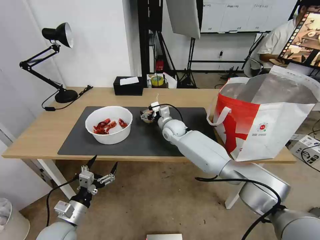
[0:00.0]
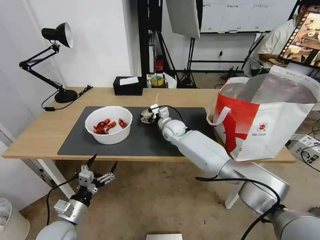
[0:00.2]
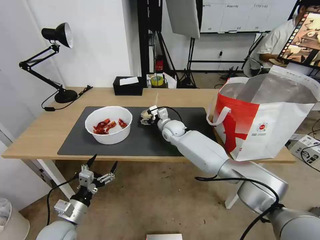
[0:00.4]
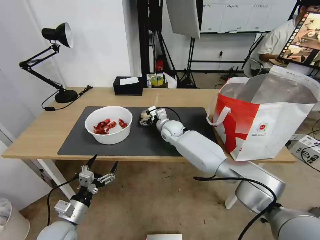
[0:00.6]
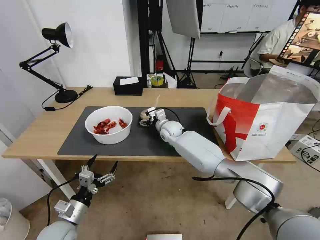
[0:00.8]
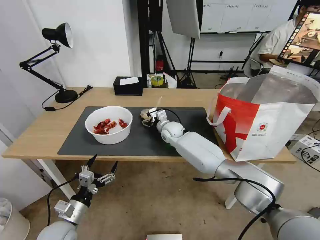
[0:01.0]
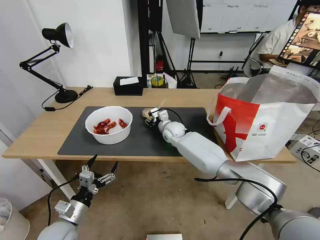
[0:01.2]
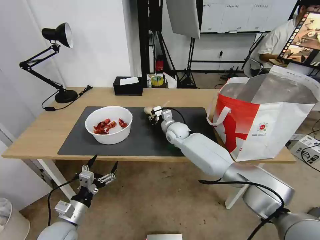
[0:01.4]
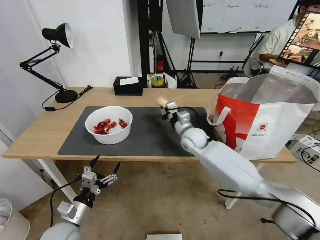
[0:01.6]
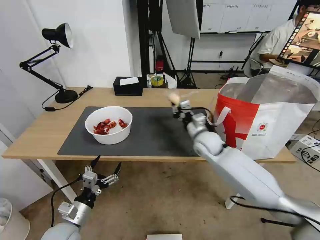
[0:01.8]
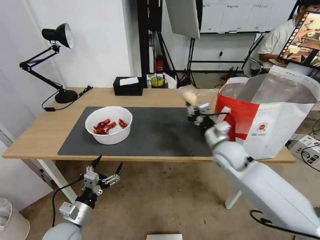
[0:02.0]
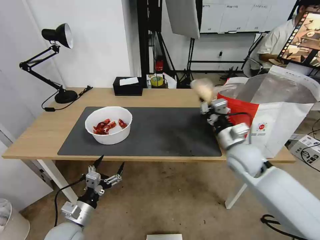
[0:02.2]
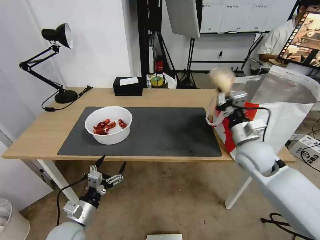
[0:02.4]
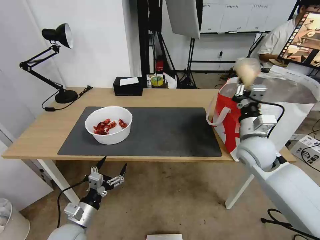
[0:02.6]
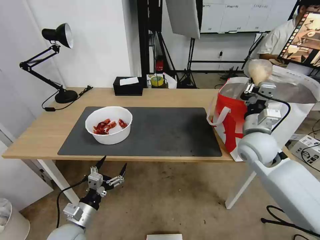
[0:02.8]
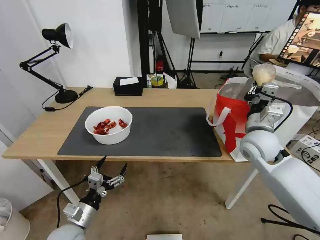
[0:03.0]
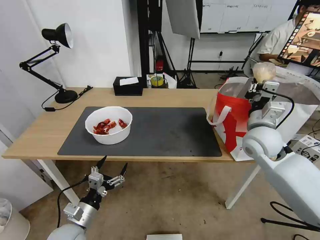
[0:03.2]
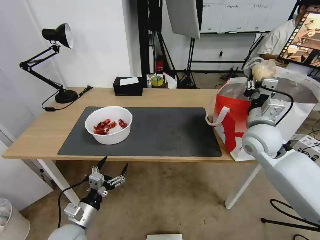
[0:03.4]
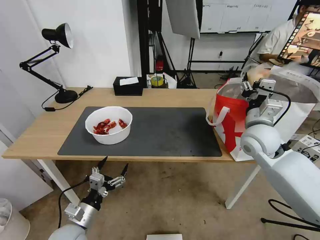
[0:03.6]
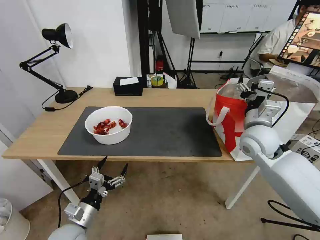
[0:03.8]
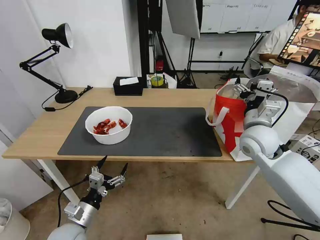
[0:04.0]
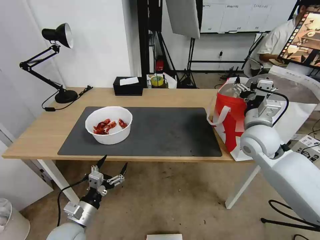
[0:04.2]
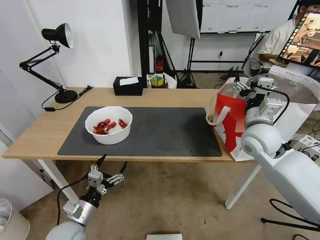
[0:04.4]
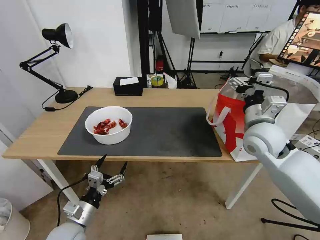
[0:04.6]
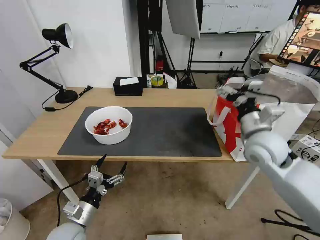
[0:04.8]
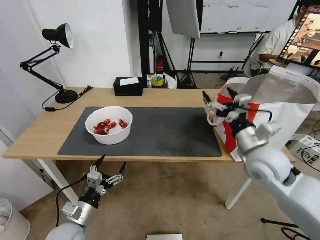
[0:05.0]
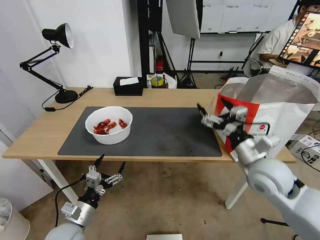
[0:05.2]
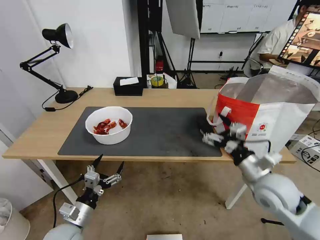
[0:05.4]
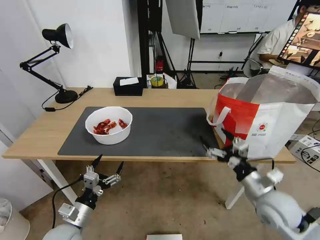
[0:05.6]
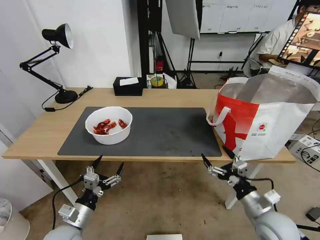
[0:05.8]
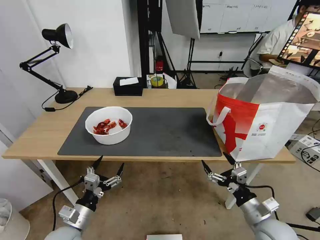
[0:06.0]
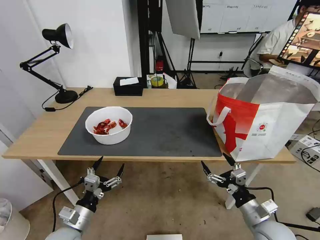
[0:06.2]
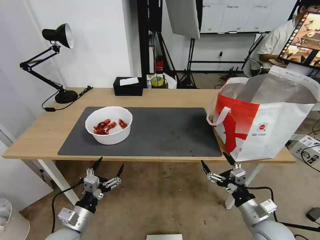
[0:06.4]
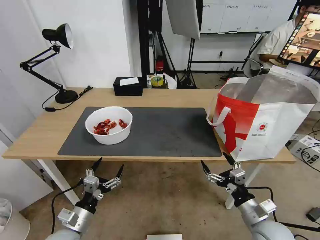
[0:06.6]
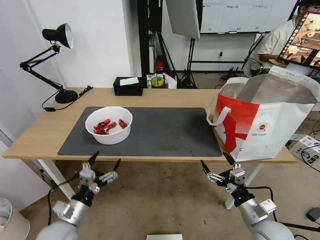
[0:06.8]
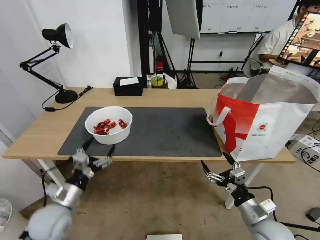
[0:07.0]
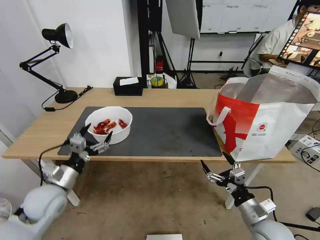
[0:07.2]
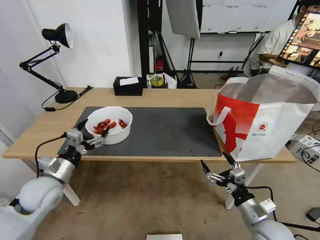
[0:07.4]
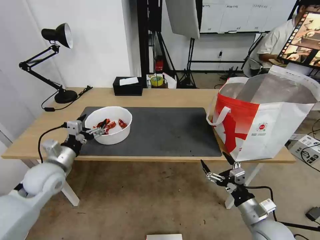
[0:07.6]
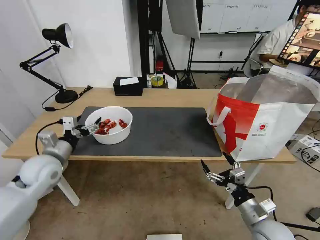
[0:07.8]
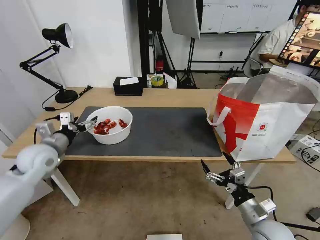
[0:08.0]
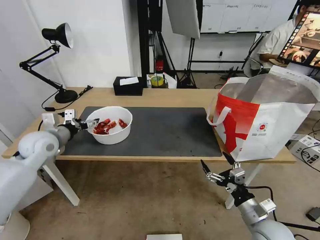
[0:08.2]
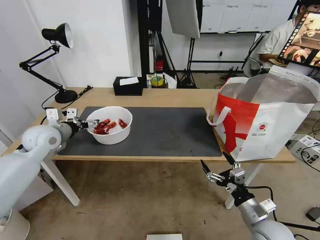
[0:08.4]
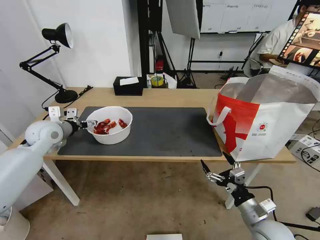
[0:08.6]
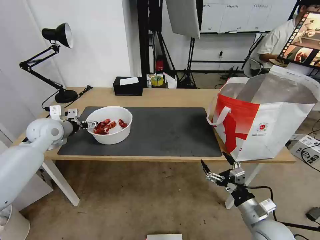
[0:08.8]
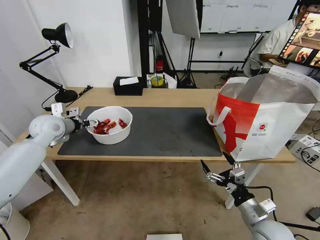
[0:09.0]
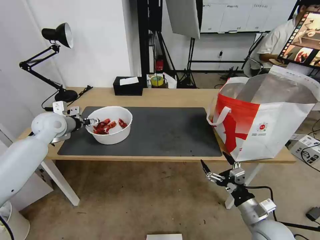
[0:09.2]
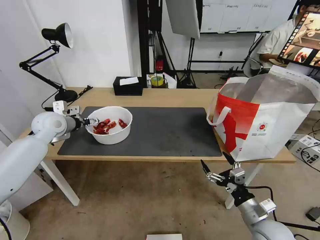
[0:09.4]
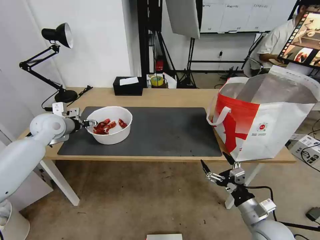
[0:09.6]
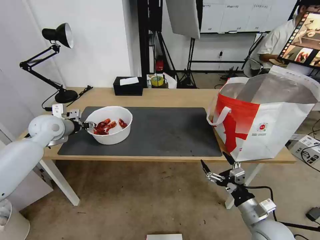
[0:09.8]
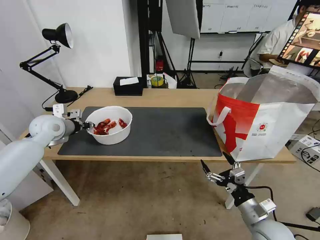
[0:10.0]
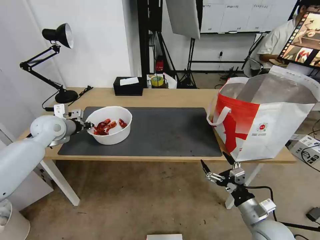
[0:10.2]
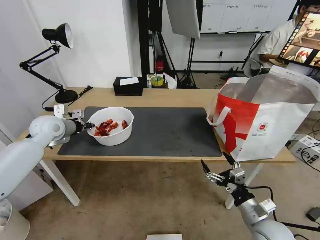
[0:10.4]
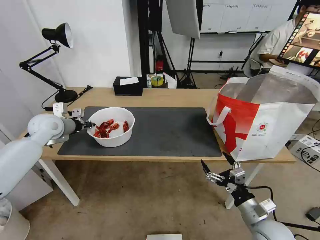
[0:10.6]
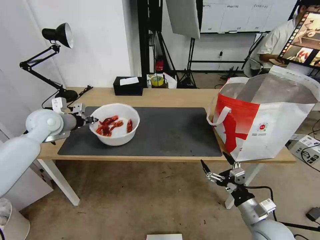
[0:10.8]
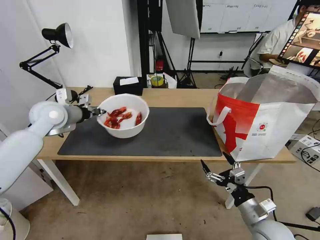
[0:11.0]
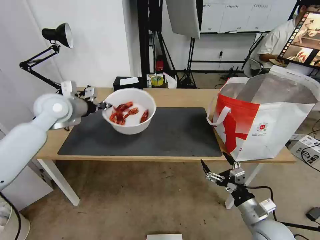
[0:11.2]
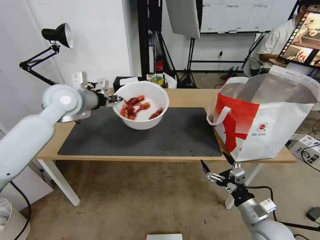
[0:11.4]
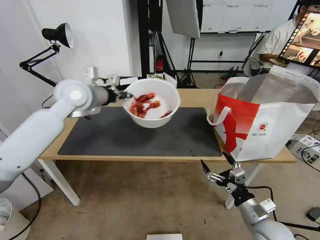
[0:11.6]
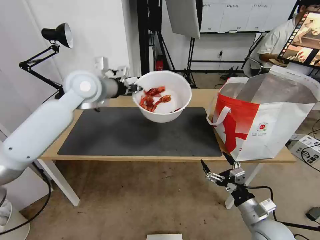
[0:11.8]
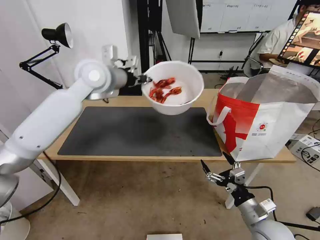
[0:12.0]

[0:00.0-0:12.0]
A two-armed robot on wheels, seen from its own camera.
Task of the whole recording: Pick up the trash from the table and place it into the takeout bag.
0:00.0 to 0:01.6: The right gripper goes some 10 cm to the right and backward, and closes up.
0:01.6 to 0:03.0: The right gripper shifts some 25 cm to the right, backward and upward.
0:03.0 to 0:04.4: The right gripper opens.
0:04.4 to 0:06.0: The right gripper goes some 25 cm backward and downward.
0:06.0 to 0:07.6: The left gripper is displaced forward, upward and to the left by some 20 cm.
0:07.6 to 0:09.0: The left gripper moves forward and upward, about 15 cm.
0:09.0 to 0:10.4: The left gripper closes up.
0:10.4 to 0:12.0: The left gripper heads to the right and upward, covering some 25 cm.

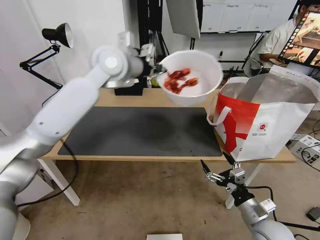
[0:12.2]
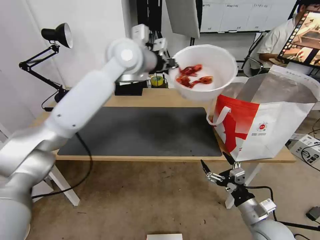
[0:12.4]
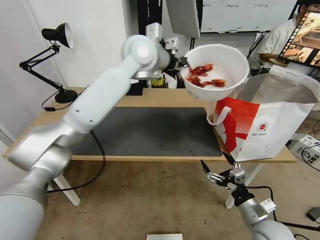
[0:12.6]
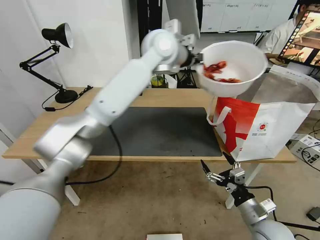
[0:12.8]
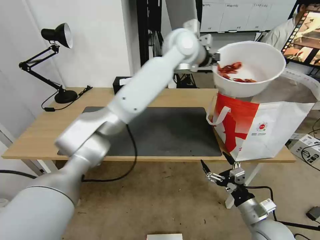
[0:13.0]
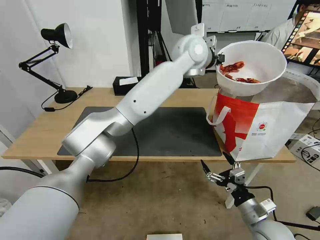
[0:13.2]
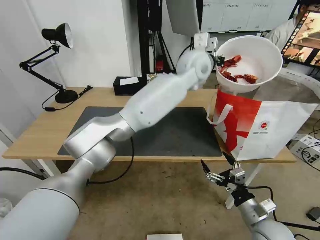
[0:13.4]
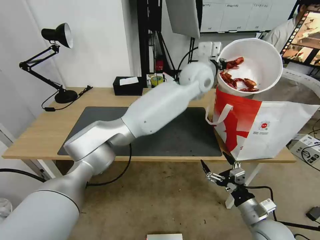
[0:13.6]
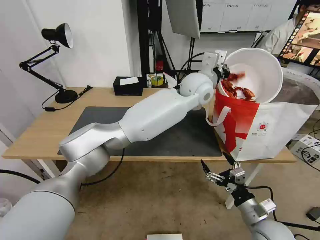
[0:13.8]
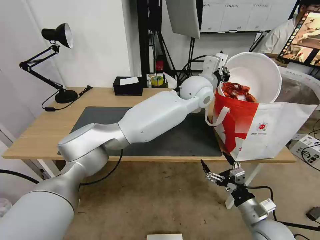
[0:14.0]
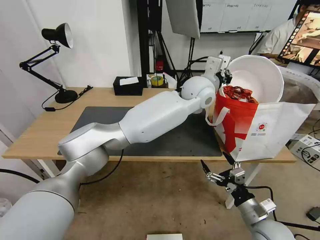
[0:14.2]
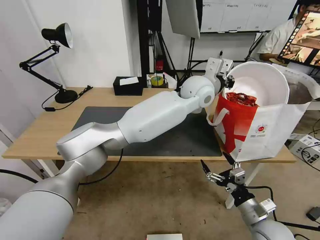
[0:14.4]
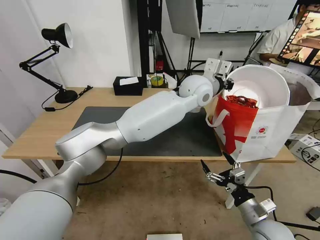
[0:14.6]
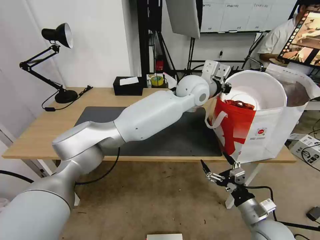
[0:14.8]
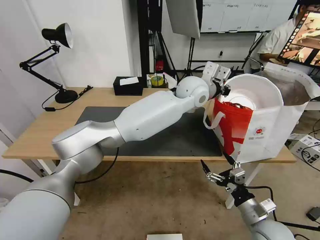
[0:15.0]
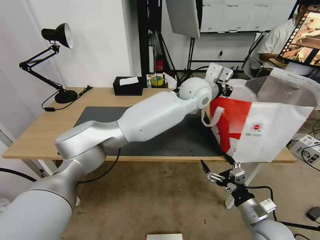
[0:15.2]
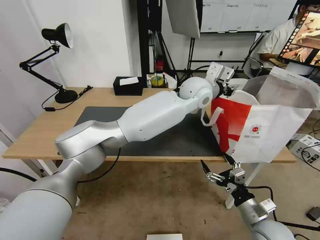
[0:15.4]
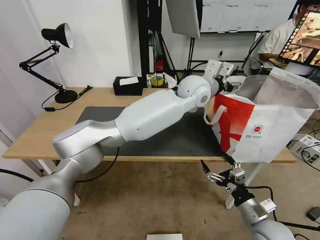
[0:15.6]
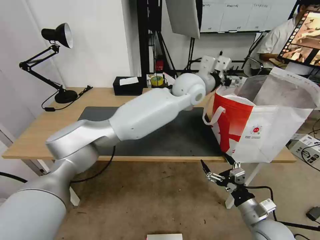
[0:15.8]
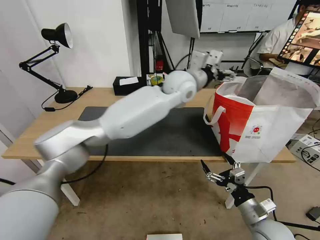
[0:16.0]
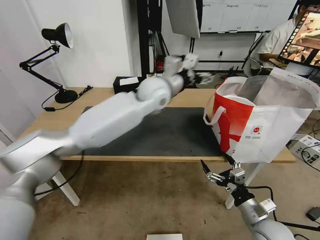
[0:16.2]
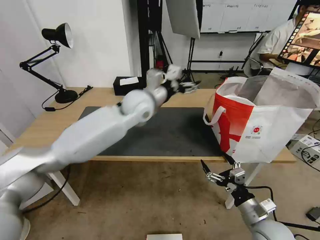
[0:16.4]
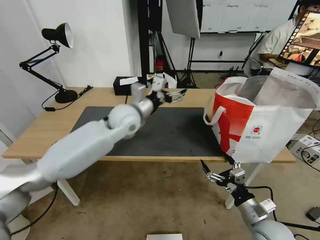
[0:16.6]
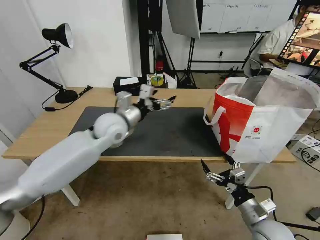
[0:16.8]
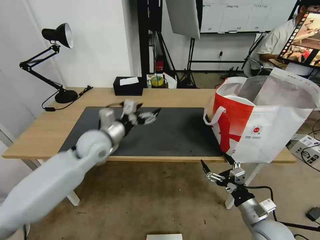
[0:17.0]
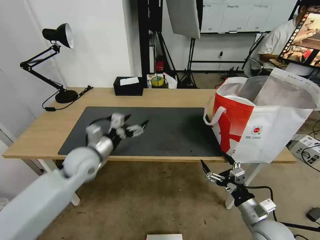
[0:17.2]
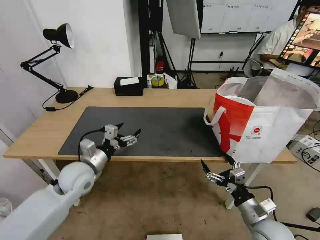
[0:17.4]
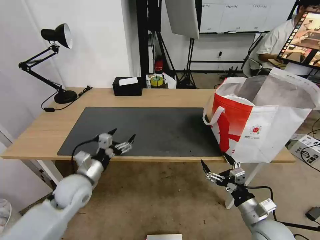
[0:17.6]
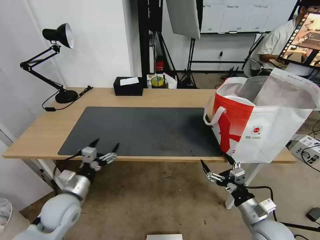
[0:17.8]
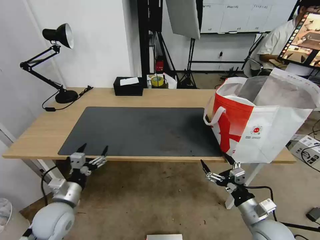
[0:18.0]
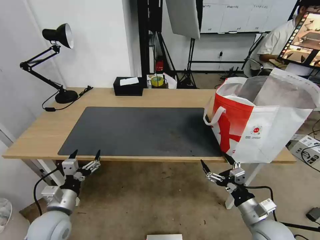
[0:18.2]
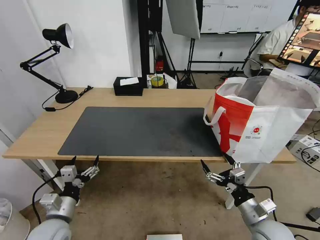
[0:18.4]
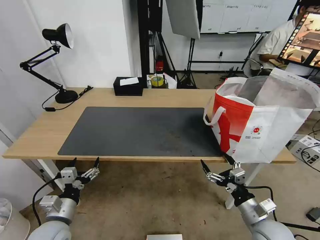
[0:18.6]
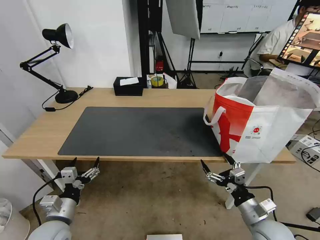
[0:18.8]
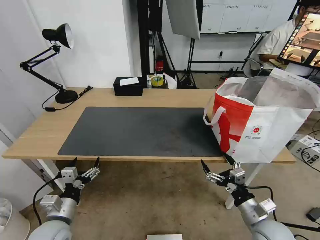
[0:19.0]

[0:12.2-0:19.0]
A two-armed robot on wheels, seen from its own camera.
Task of the whole recording: Pick up the trash from the table and place it into the takeout bag.
0:12.2 to 0:13.6: The left gripper travels to the right by approximately 25 cm.
0:15.0 to 0:16.2: The left gripper is displaced to the left by approximately 10 cm, and opens.
0:16.2 to 0:17.6: The left gripper shifts about 40 cm to the left, downward and backward.
0:17.6 to 0:19.0: The left gripper heads backward, covering approximately 10 cm.
